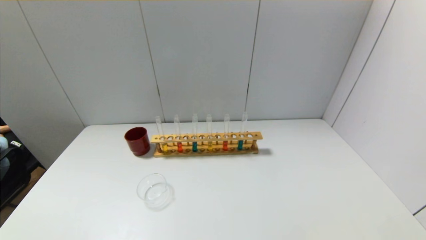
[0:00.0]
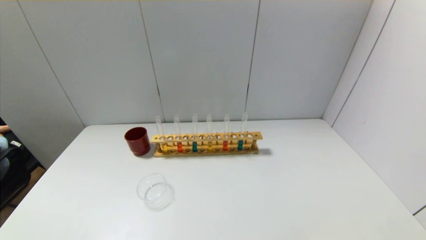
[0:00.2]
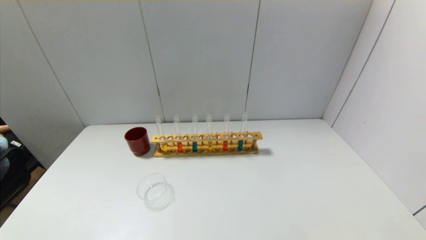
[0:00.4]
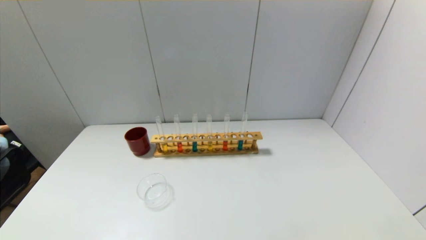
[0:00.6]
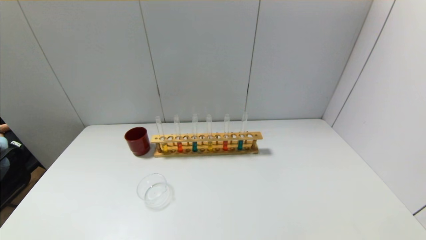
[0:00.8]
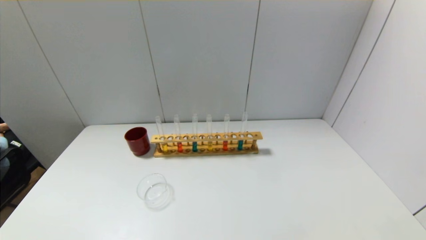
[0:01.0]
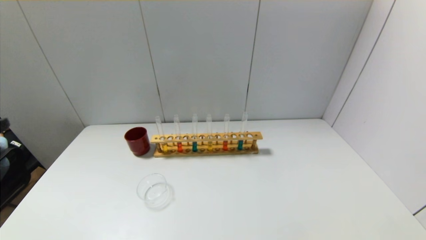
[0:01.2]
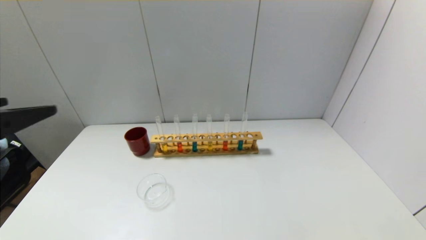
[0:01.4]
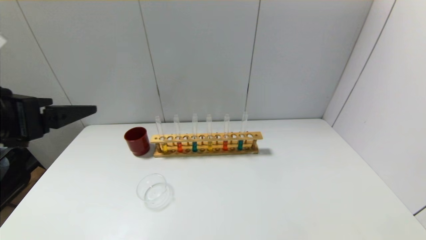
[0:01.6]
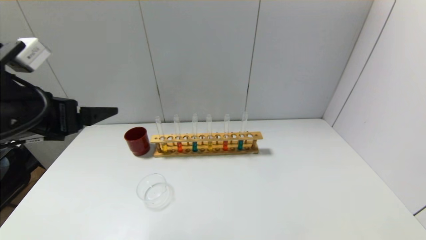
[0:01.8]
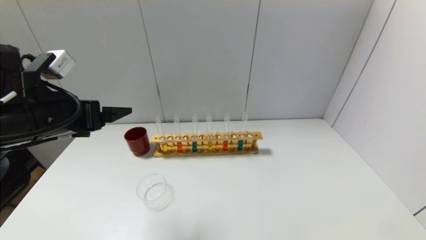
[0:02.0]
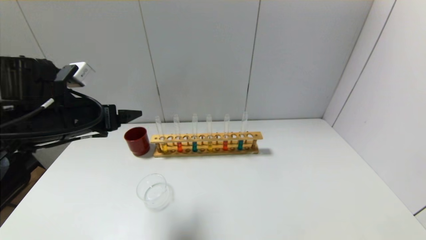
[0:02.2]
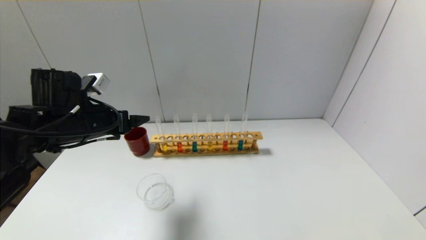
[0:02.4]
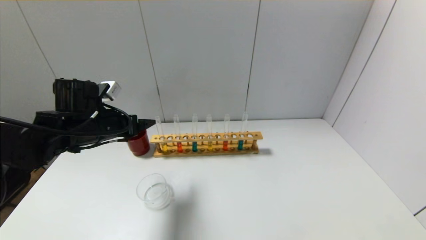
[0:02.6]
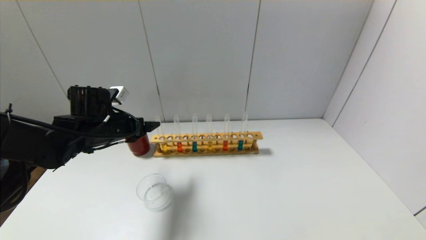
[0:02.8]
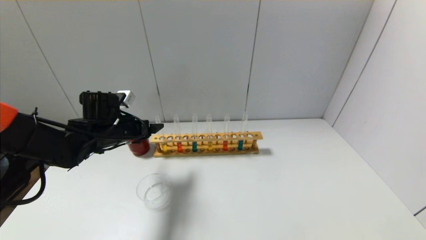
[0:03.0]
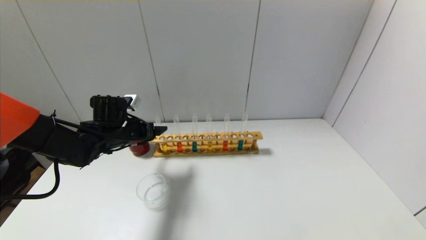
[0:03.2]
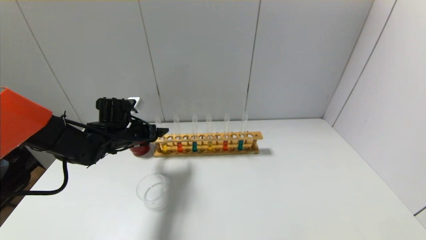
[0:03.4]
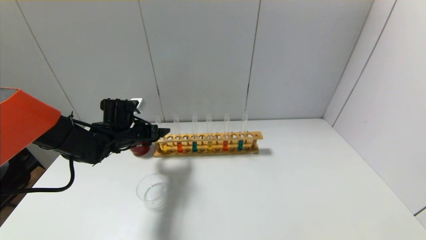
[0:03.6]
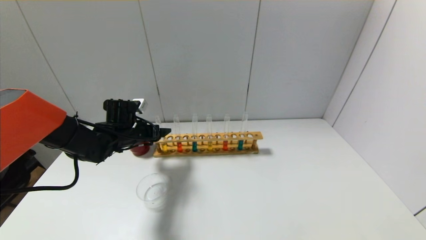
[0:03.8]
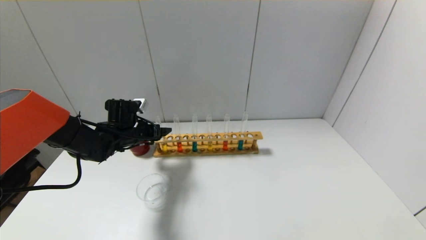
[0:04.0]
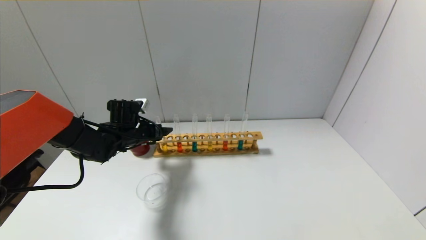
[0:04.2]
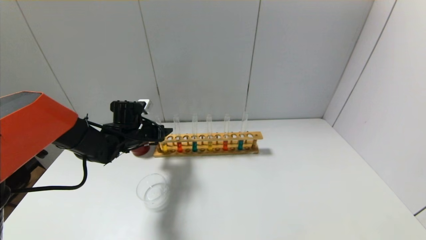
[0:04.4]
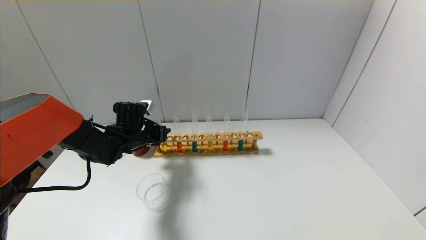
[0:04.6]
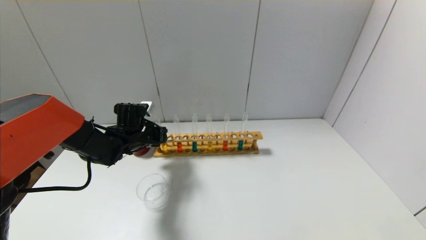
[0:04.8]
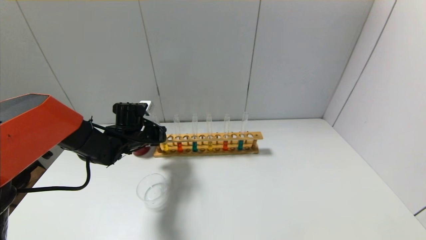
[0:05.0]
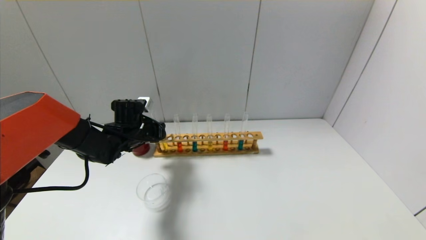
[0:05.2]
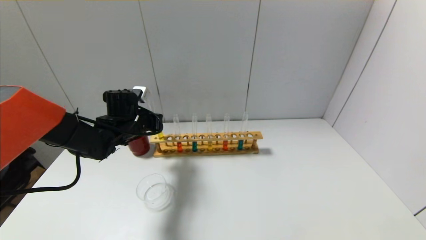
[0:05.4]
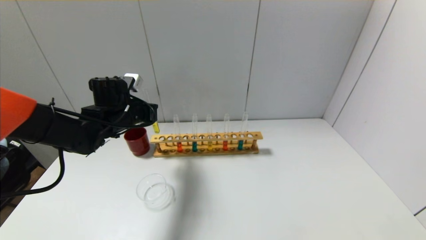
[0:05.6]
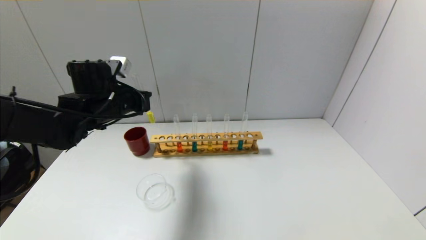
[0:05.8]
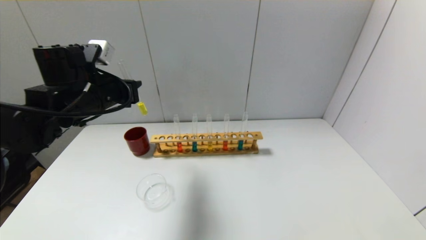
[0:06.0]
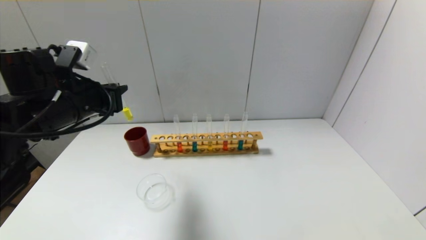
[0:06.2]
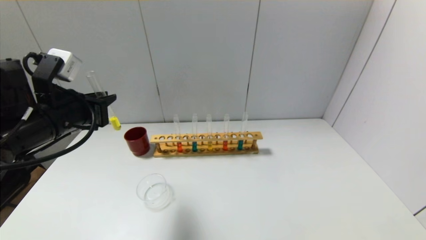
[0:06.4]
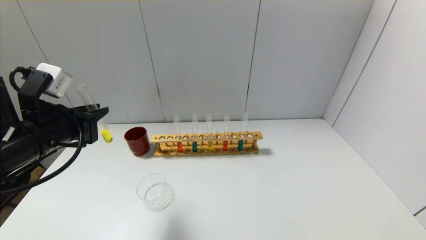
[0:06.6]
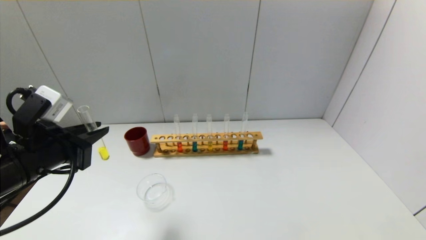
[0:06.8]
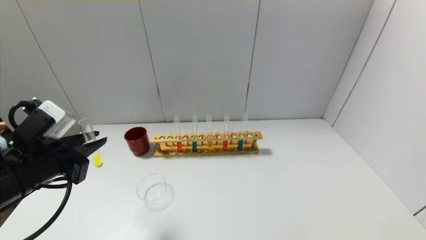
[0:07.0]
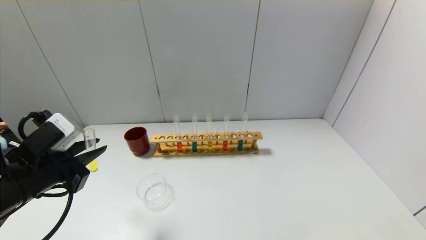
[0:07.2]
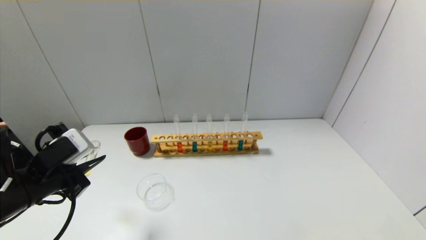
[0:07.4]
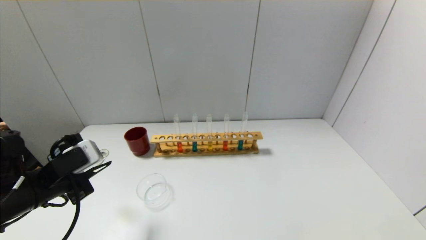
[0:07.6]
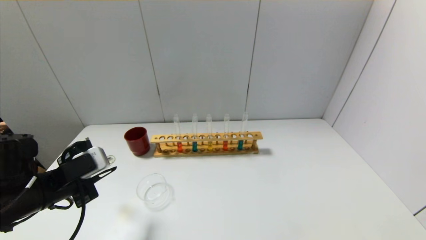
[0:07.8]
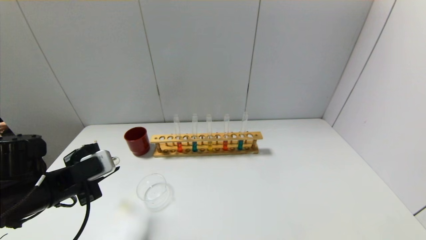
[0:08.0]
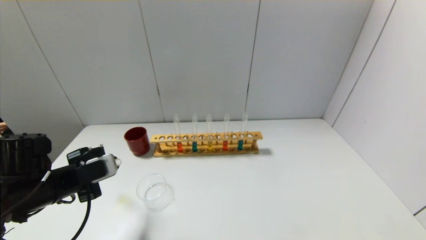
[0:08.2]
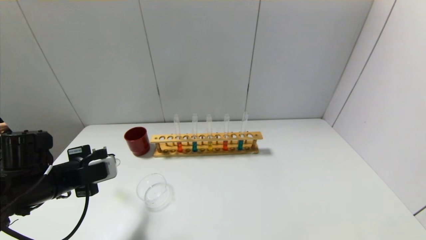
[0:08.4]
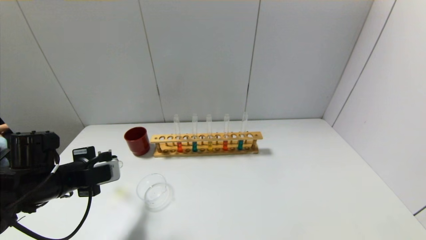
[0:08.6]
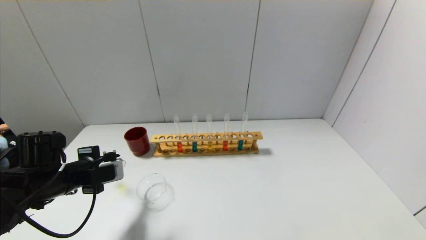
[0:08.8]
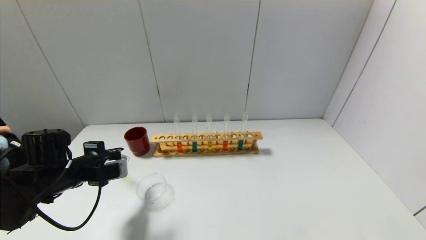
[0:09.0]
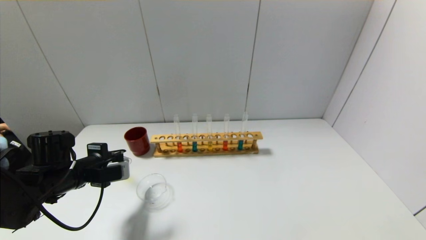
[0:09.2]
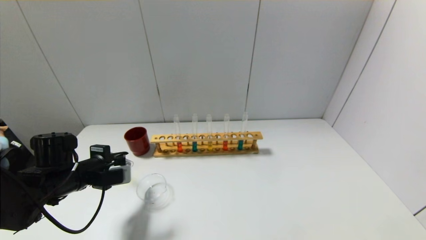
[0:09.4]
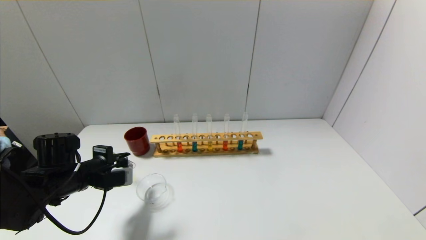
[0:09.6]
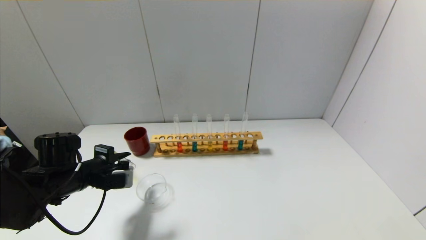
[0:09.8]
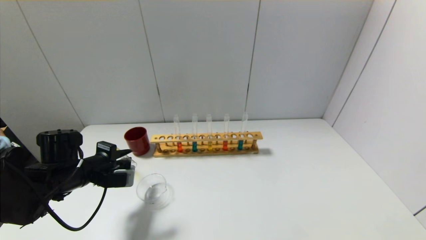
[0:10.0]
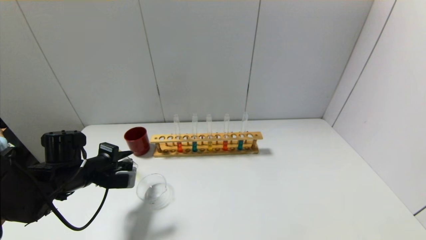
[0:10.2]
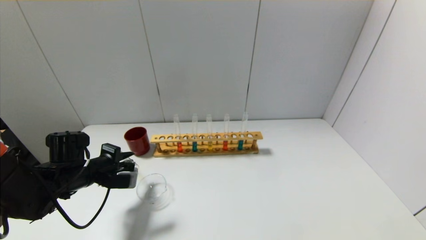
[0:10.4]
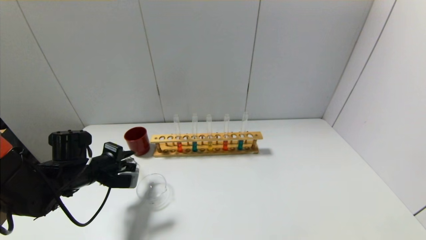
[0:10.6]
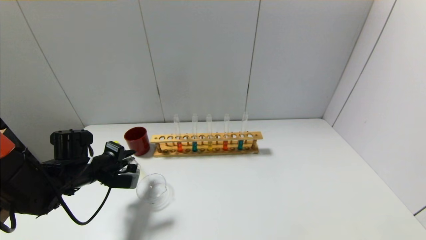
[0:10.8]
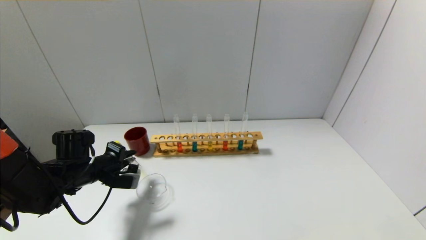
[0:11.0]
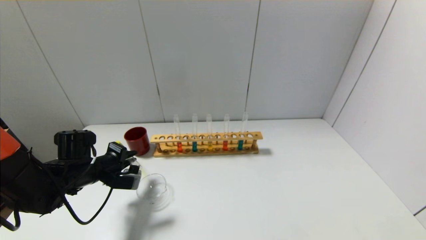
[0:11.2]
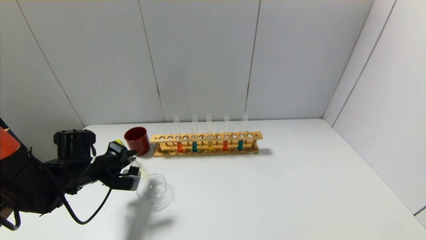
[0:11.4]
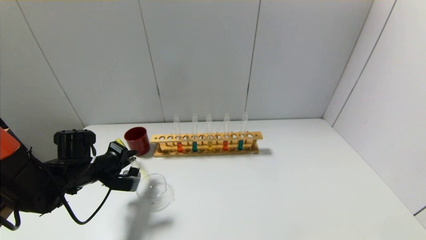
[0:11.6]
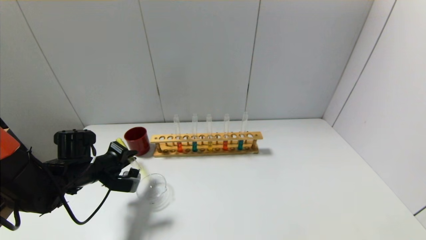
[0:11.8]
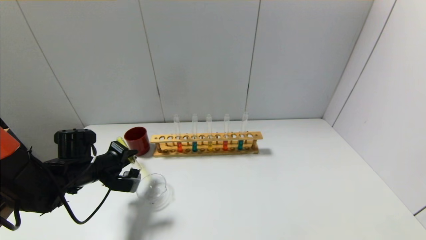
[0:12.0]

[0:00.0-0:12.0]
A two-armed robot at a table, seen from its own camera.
Step, 0:00.0 to 0:04.8: Grasp the yellow reagent with the left gripper.
0:00.0 to 0:01.6: The left gripper travels upward and forward by about 30 cm.
0:01.6 to 0:03.0: The left gripper goes about 25 cm forward and downward.
0:03.0 to 0:04.4: The left gripper ends up roughly 5 cm from where it was.
0:04.4 to 0:06.0: The left gripper is displaced upward and backward by approximately 15 cm, and closes.
0:06.0 to 0:07.6: The left gripper is displaced backward, downward and to the left by roughly 15 cm.
0:07.6 to 0:09.0: The left gripper goes roughly 5 cm forward.
0:09.0 to 0:10.4: The grippers move only a little.
0:10.4 to 0:12.0: The grippers stay close to where they were, moving slightly.

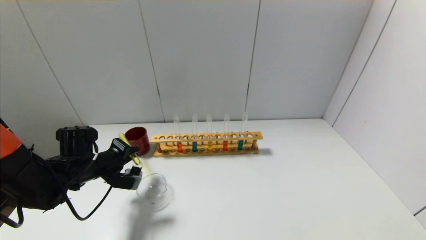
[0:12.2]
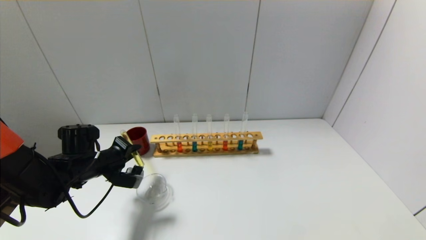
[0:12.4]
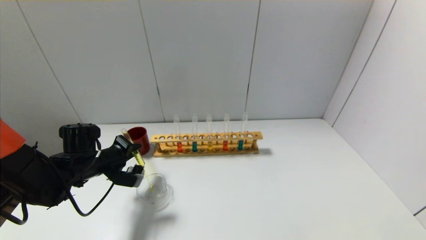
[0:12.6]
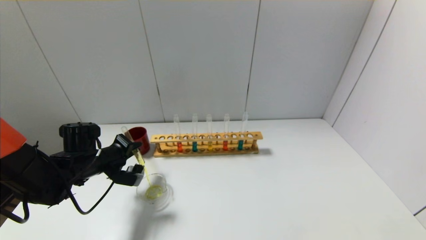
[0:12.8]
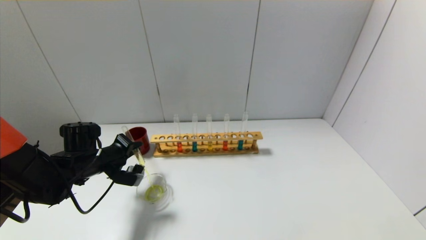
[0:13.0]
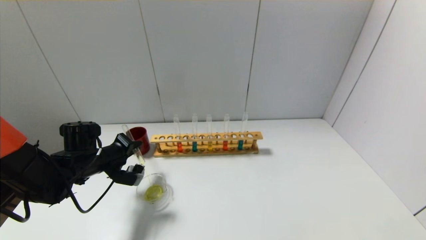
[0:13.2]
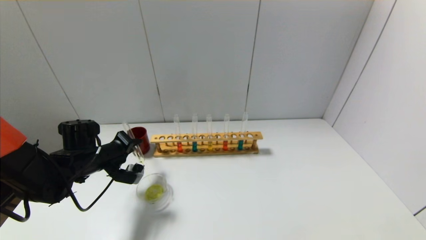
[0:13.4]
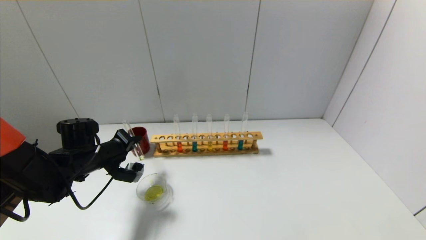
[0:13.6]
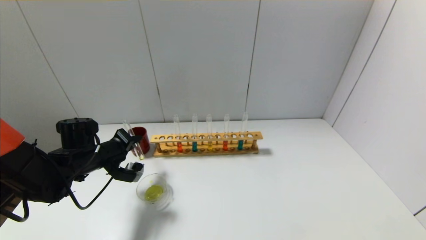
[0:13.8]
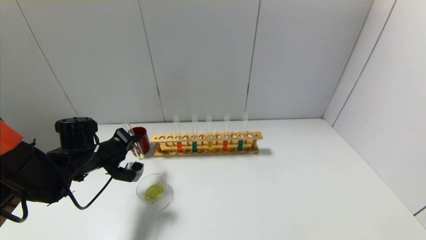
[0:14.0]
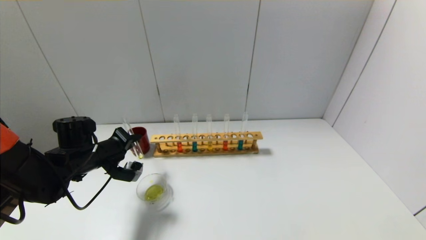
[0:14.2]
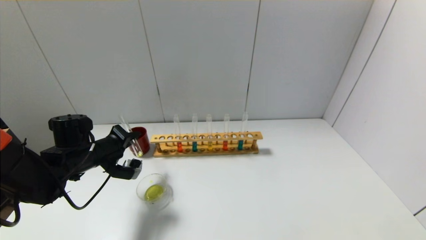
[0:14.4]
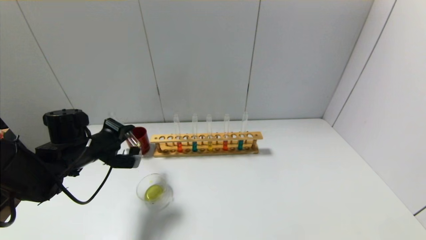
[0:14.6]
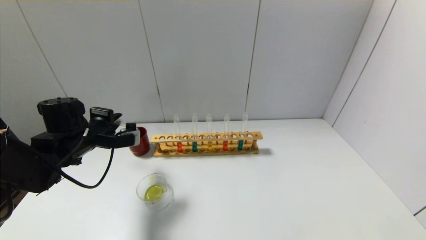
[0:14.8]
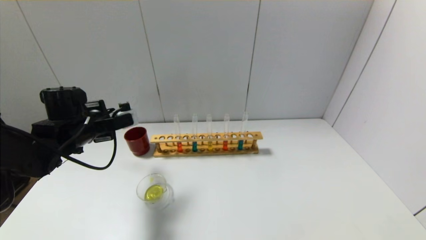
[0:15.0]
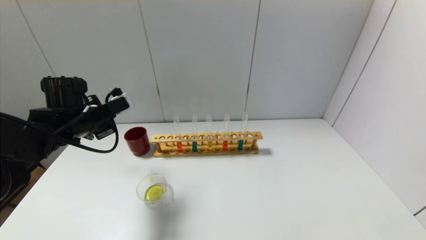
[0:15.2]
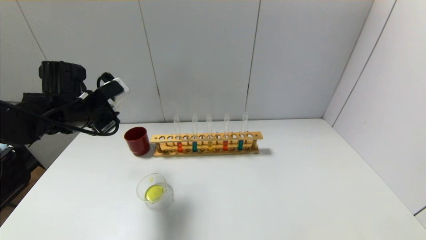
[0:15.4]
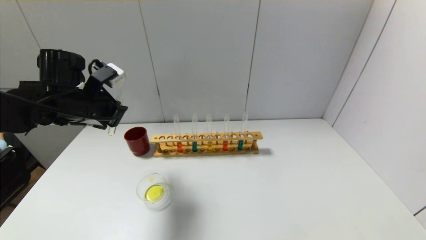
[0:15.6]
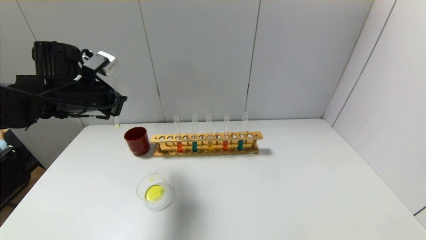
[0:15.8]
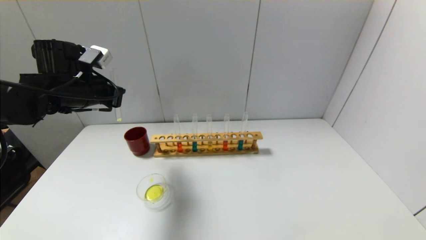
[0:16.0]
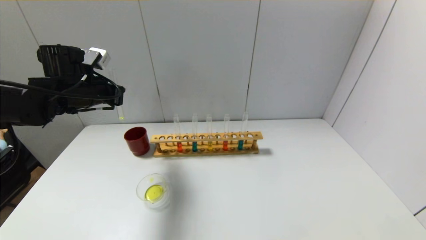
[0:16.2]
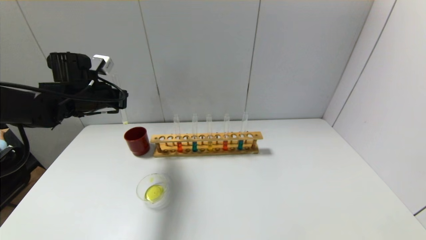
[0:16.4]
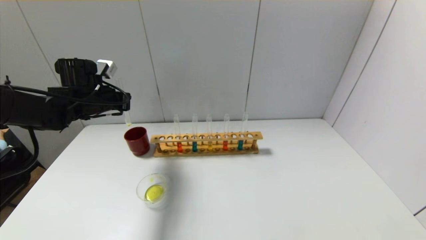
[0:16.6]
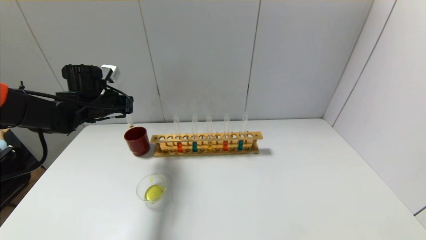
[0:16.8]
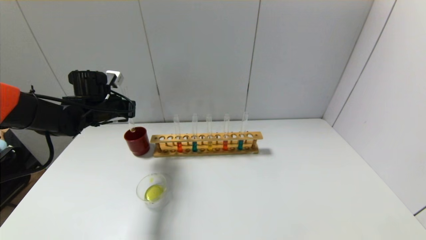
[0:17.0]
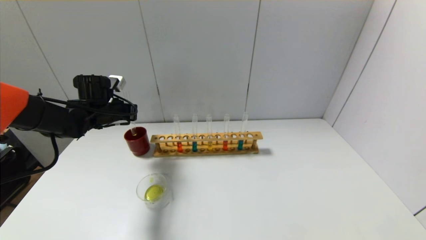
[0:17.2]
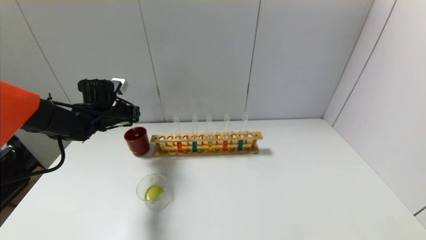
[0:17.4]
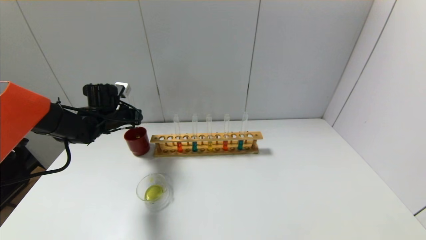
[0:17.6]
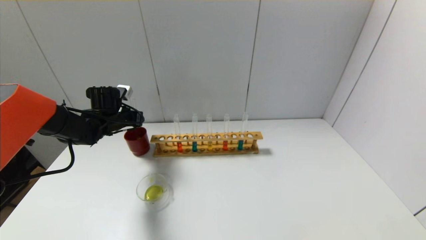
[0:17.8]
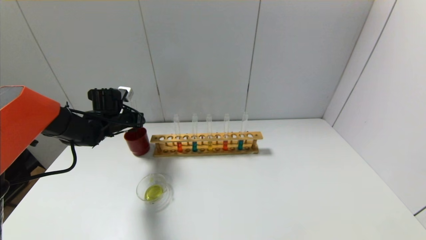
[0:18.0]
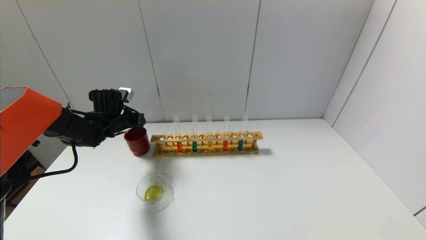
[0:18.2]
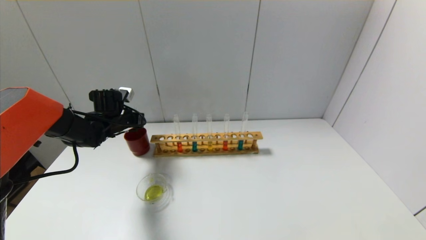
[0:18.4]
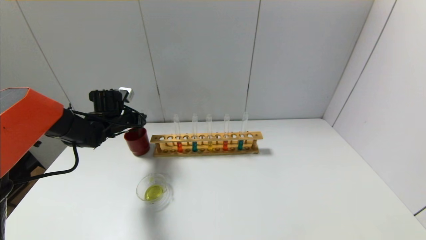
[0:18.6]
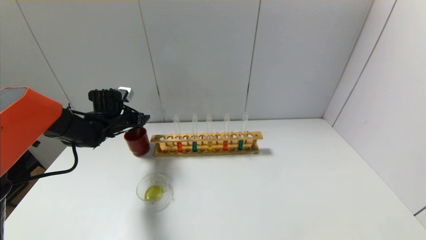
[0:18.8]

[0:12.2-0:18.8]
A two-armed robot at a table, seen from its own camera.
Step, 0:12.2 to 0:14.6: Pour the yellow reagent into the graduated cylinder with the left gripper.
Step, 0:14.8 to 0:18.6: Place the test tube into the brown cup with the left gripper.
0:12.2 to 0:13.8: There are only small adjustments of the grippers.
0:13.8 to 0:15.4: The left gripper heads upward, covering about 10 cm.
0:15.4 to 0:17.2: The left gripper moves forward, roughly 10 cm.
0:17.2 to 0:18.8: The left gripper ends up roughly 5 cm from where it was, and opens.
